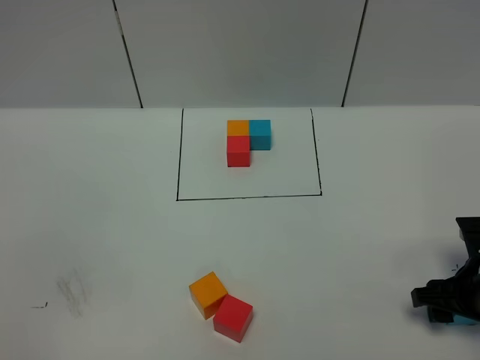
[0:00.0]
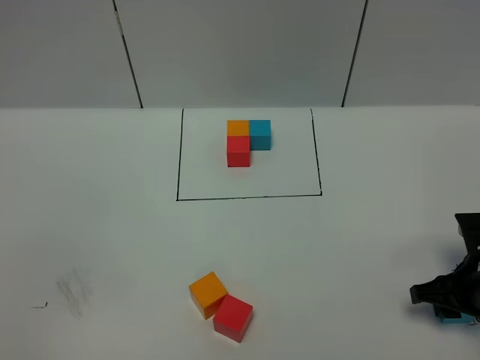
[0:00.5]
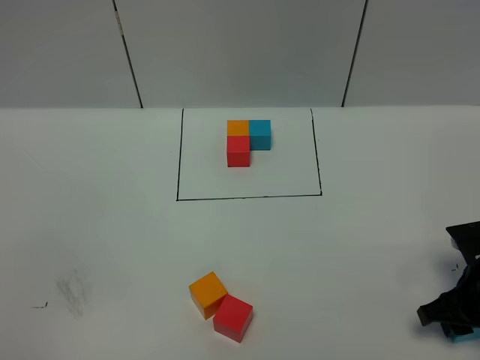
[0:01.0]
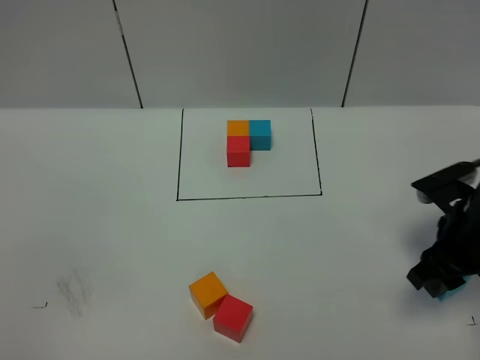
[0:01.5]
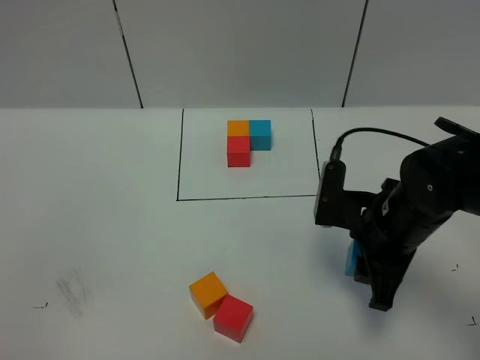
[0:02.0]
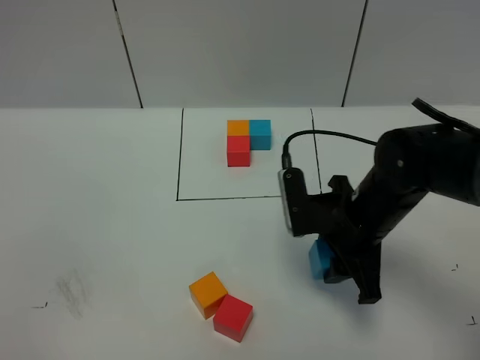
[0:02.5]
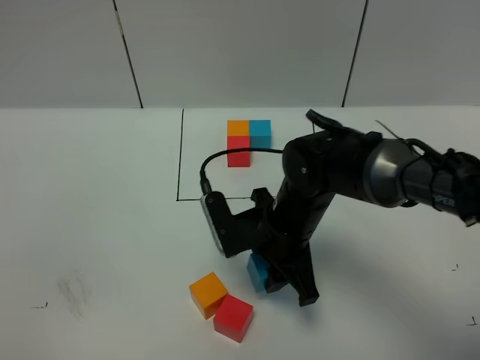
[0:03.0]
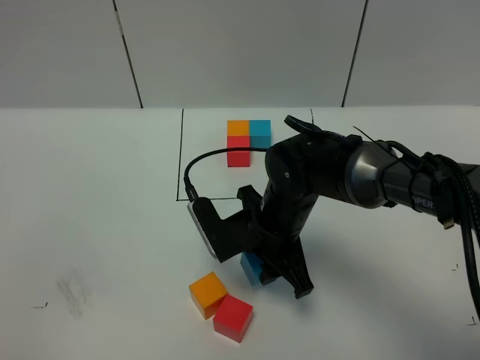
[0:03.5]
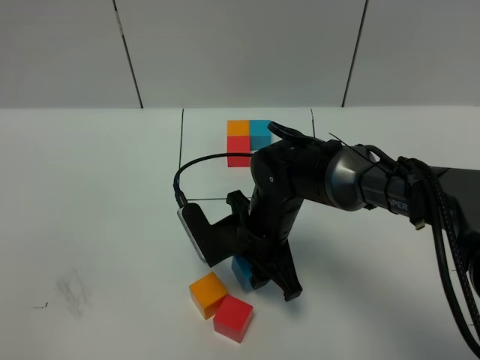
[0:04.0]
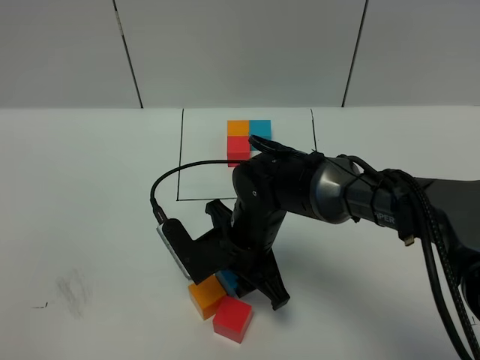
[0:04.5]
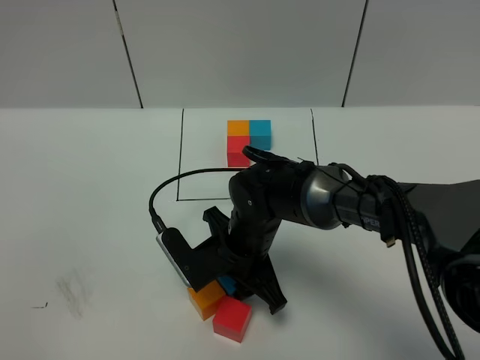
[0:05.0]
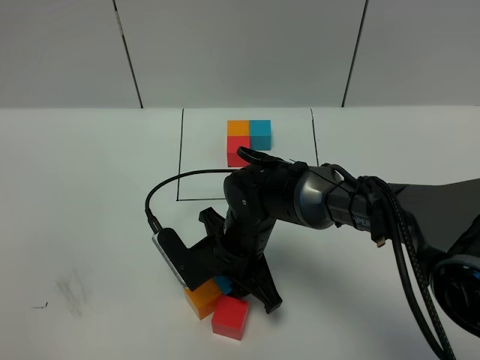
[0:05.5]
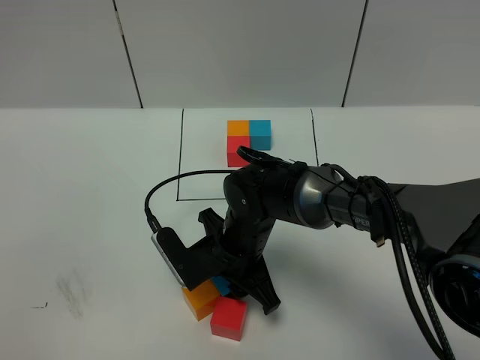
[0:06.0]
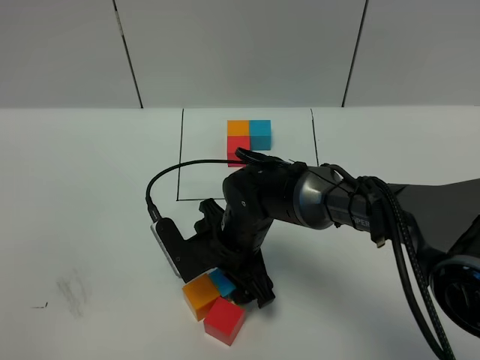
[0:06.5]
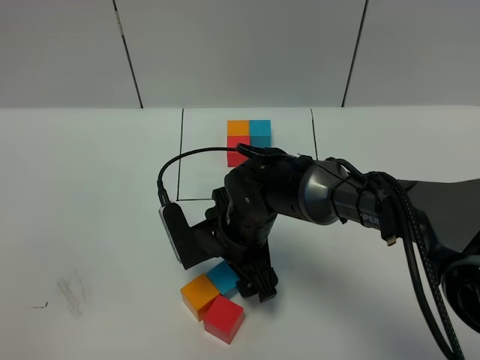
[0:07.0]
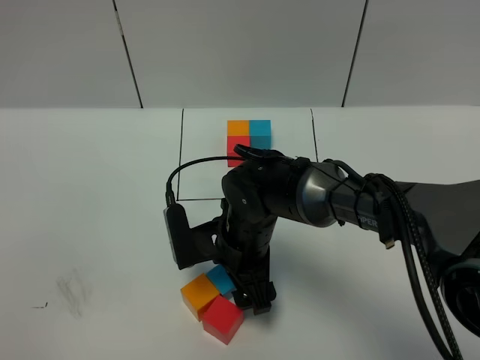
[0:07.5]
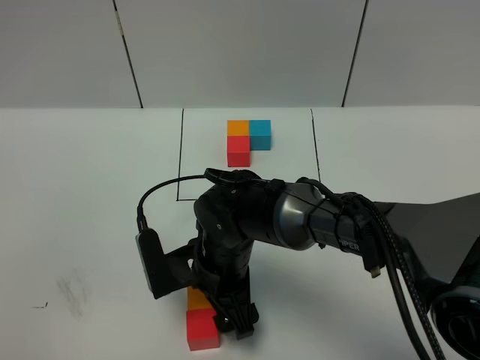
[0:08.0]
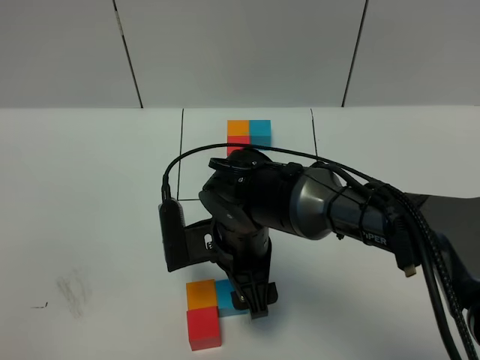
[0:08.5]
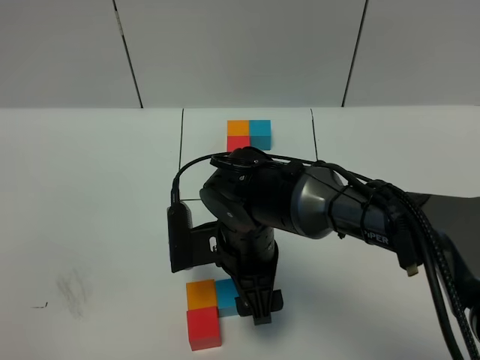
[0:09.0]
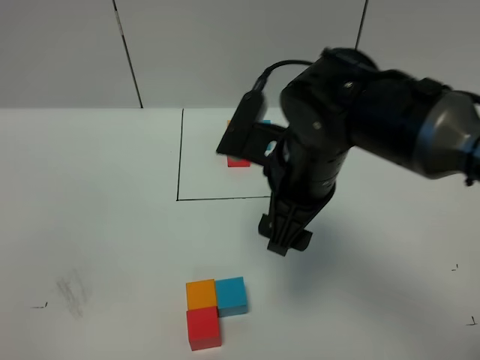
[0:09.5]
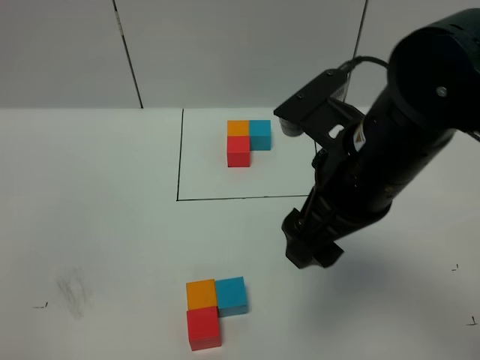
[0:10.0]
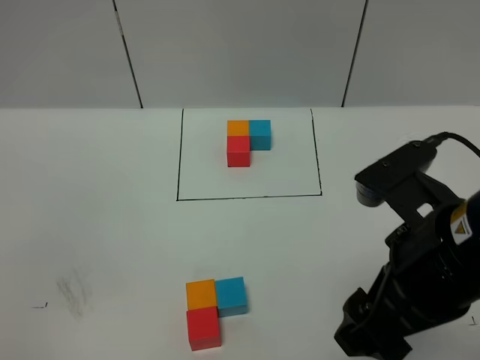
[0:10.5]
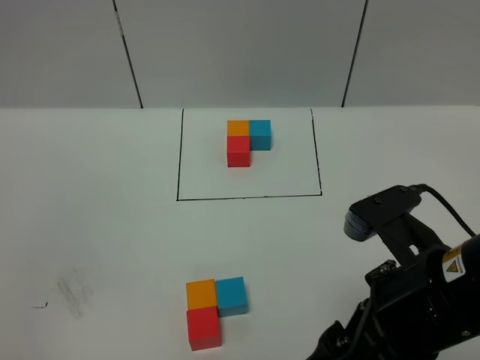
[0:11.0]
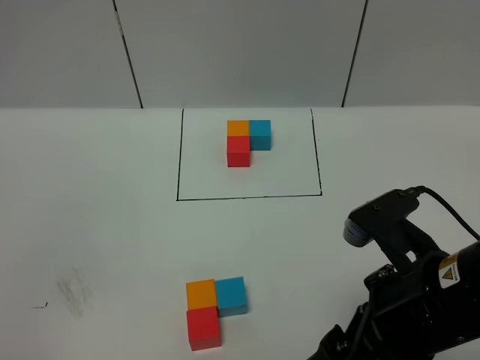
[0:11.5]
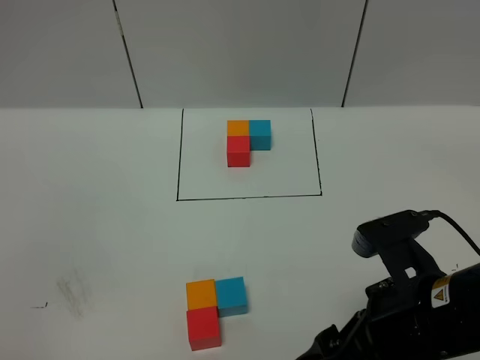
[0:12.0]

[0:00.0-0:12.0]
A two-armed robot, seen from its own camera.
Task of the whole recording: According to the building block template in front, assemble the scattered blocks together.
Step, 0:00.0 to 0:09.0: Put the blue cube on the right of the orange cube.
0:00.0 to 0:02.0: The right gripper is displaced to the left and upward by about 15 cm.
0:02.0 to 0:04.0: The right gripper moves to the left, some 15 cm.
0:04.0 to 0:06.0: The grippers move only a little.
0:06.0 to 0:08.0: The right gripper opens its fingers.
0:08.0 to 0:10.0: The right gripper moves upward and to the right, some 25 cm.
0:10.0 to 0:12.0: The right gripper is displaced backward and downward by about 10 cm.

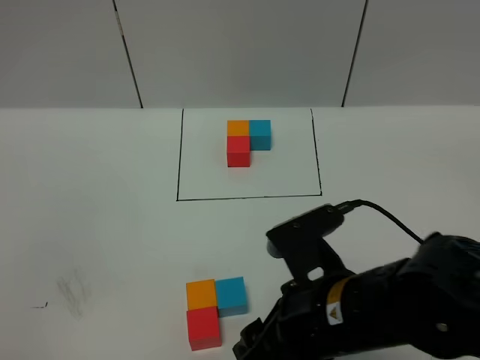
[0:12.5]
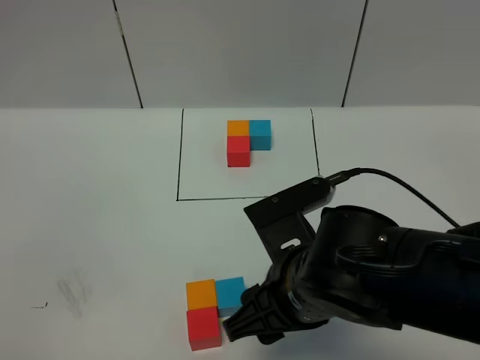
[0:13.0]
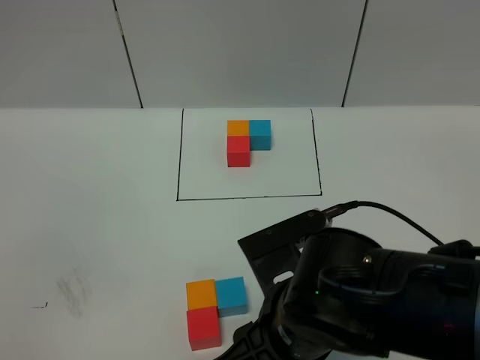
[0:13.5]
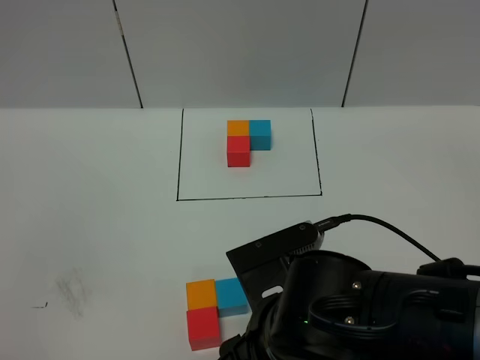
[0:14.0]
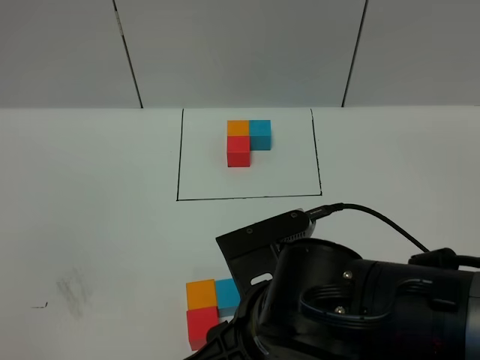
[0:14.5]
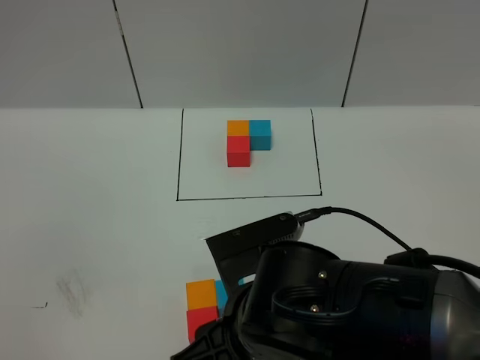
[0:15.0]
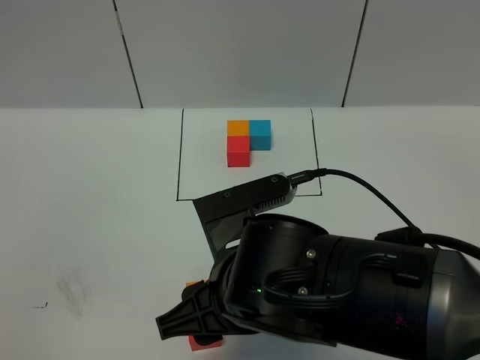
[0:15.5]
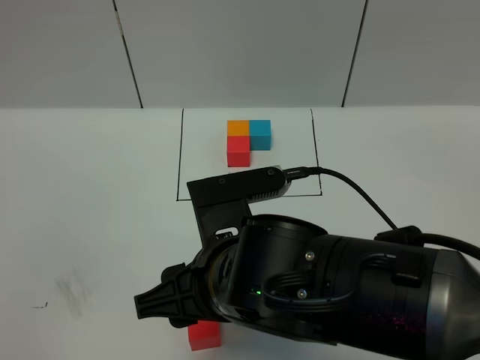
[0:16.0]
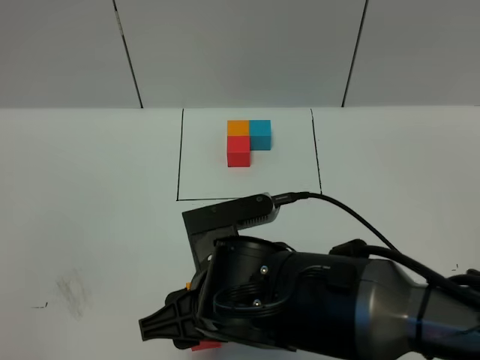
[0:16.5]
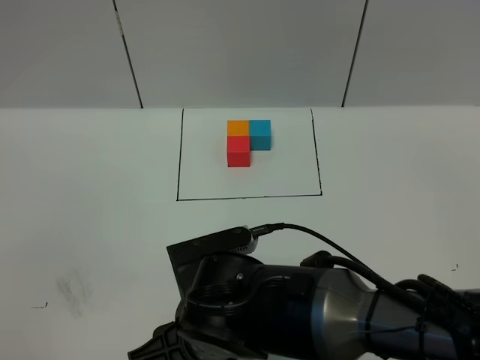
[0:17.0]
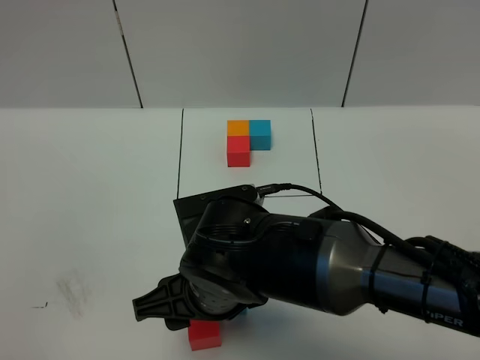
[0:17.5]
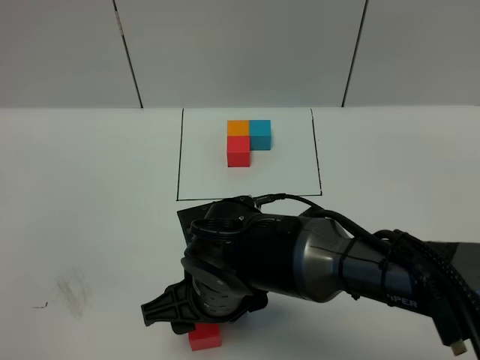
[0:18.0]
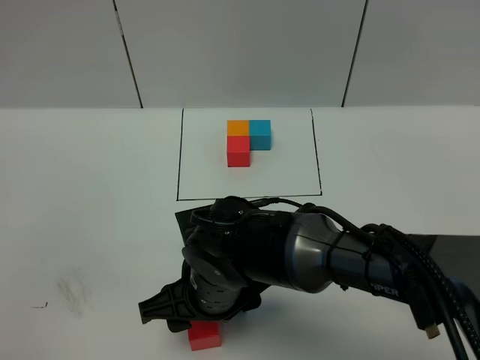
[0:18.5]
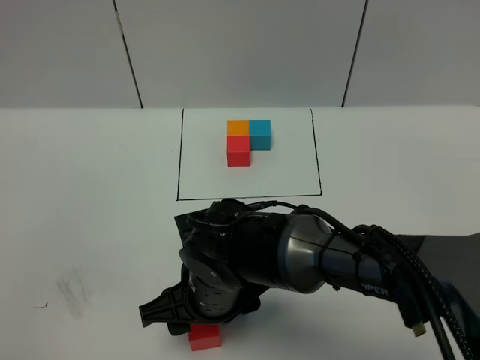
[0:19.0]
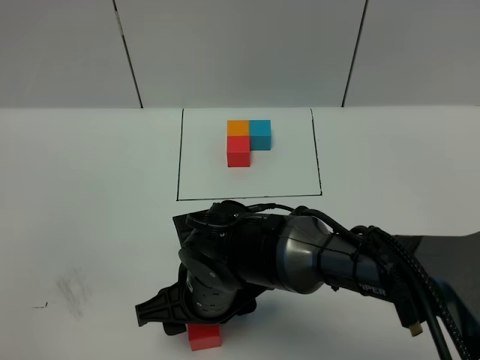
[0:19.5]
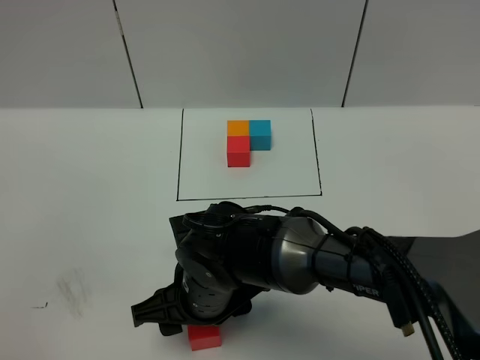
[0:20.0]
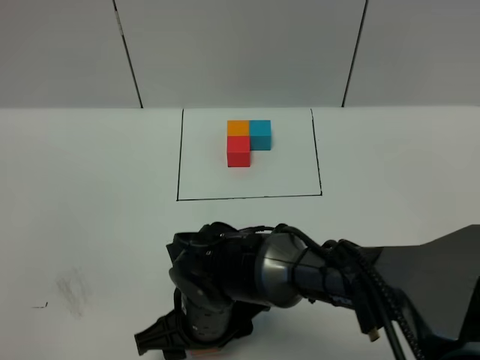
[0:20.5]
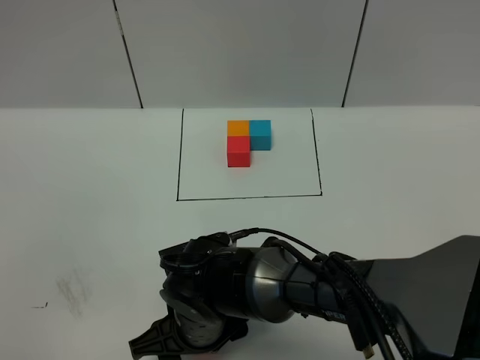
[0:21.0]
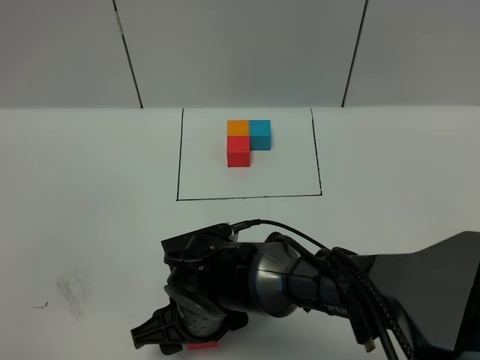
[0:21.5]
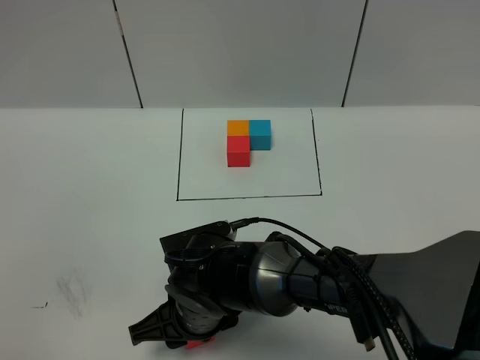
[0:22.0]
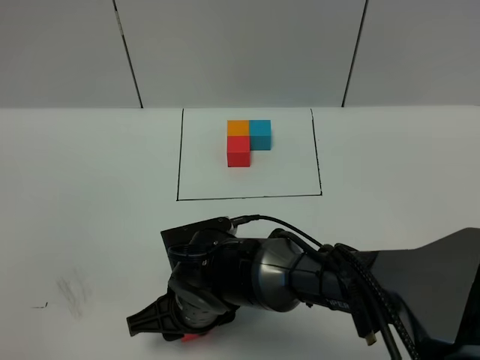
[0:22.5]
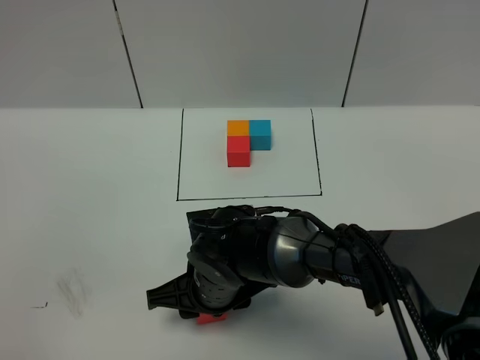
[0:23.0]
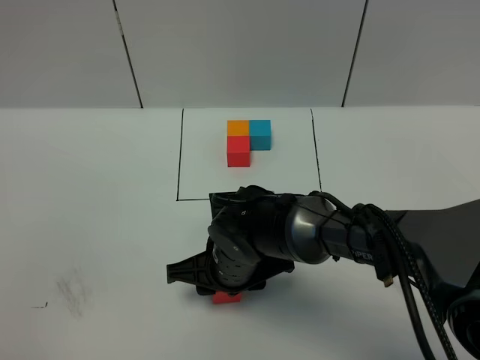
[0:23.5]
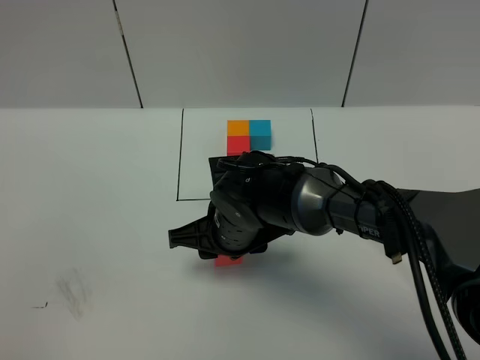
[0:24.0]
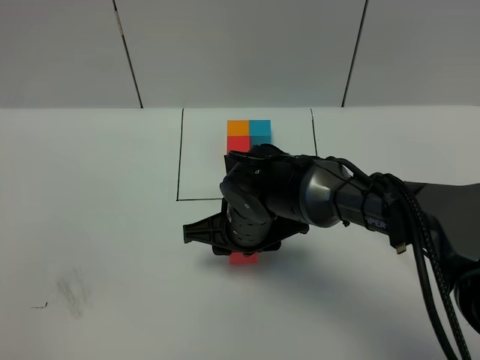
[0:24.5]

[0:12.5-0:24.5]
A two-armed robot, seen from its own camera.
Task of the whole recording: According to the building block template in front, assemble the scattered blocks together.
0:12.5 to 0:14.5: The right gripper travels to the left by about 5 cm.
0:14.5 to 0:16.5: The right gripper shifts by about 5 cm.
0:16.5 to 0:18.5: The right gripper shifts approximately 10 cm forward and downward.
0:18.5 to 0:22.5: The grippers move only a little.
0:22.5 to 0:24.5: The right gripper heads forward and to the right, covering approximately 10 cm.

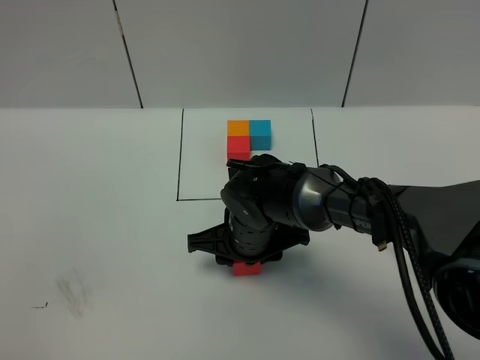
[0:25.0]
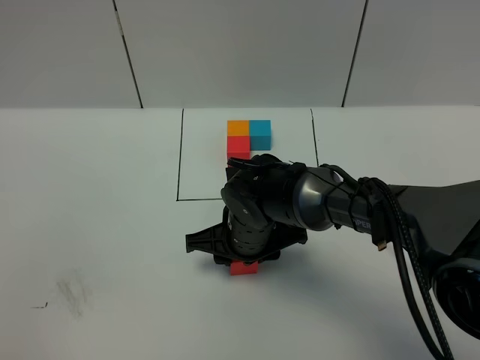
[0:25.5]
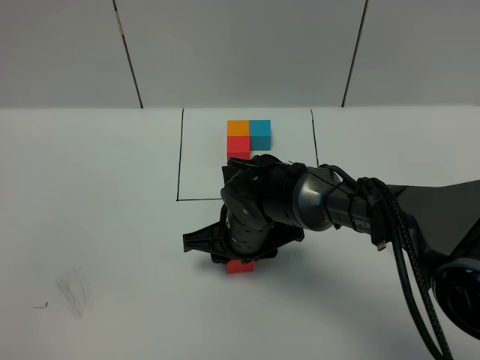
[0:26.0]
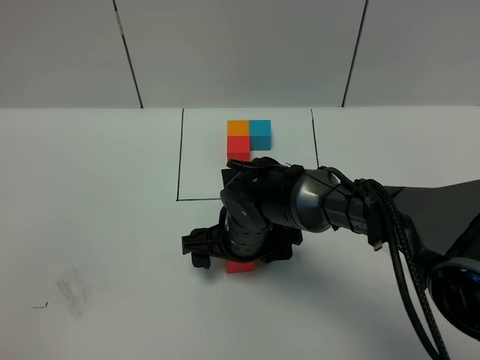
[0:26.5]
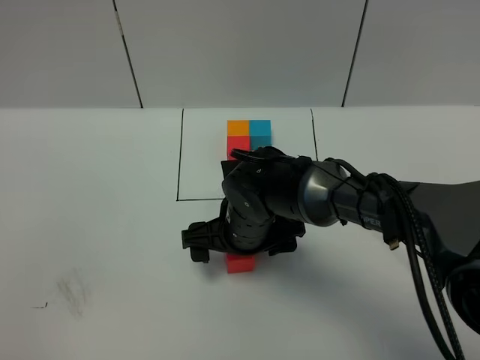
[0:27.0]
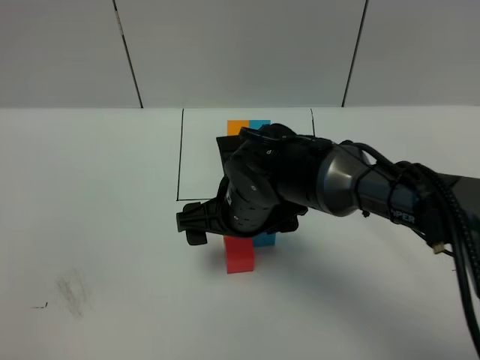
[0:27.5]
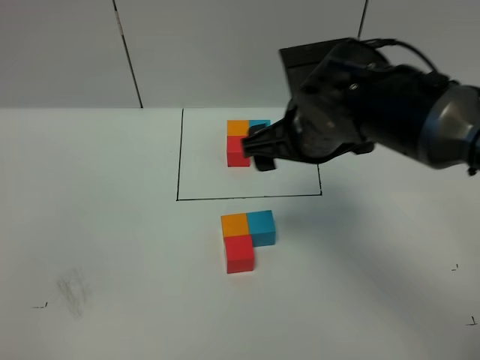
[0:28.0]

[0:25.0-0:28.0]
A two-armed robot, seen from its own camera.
Task of the whole recording: According to the building block template in front, assemble the scattered blocks together.
0:25.0 to 0:26.5: The right gripper opens up.
0:26.5 to 0:28.0: The right gripper goes approximately 20 cm upward and to the right.
